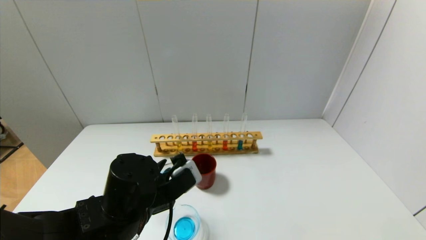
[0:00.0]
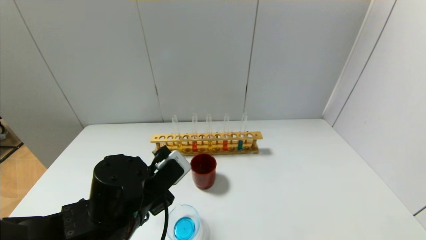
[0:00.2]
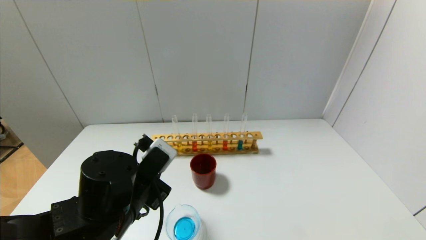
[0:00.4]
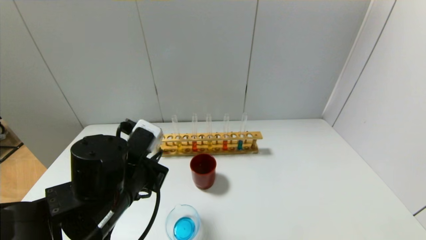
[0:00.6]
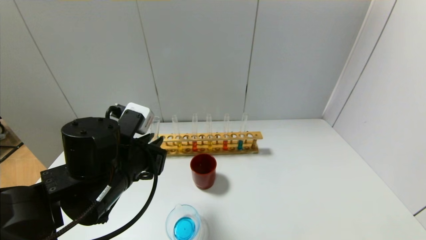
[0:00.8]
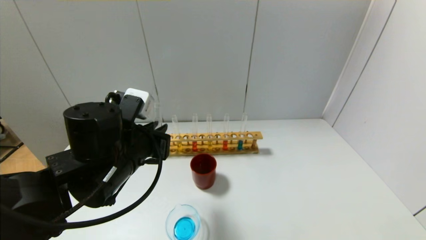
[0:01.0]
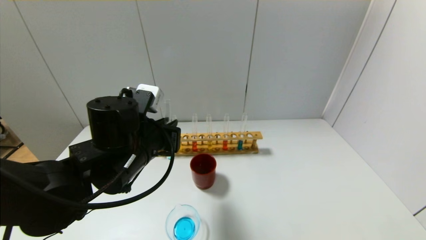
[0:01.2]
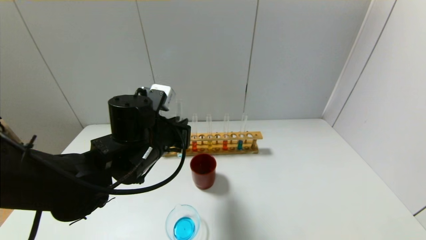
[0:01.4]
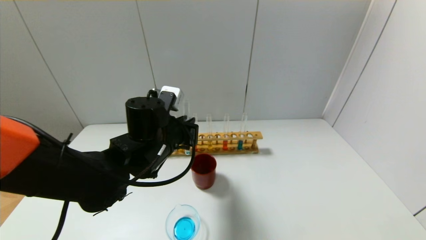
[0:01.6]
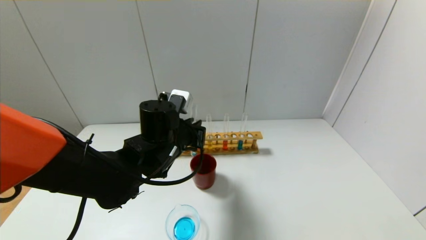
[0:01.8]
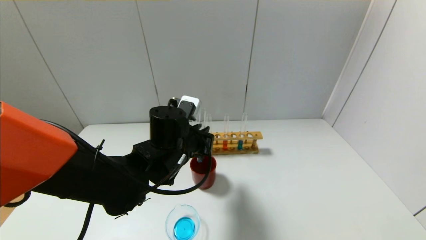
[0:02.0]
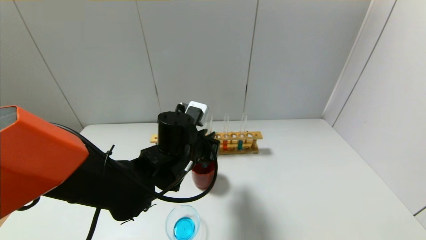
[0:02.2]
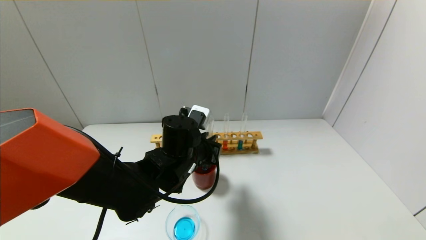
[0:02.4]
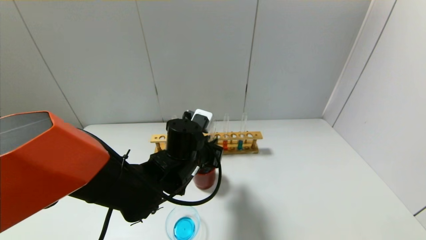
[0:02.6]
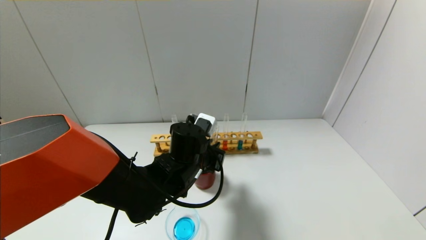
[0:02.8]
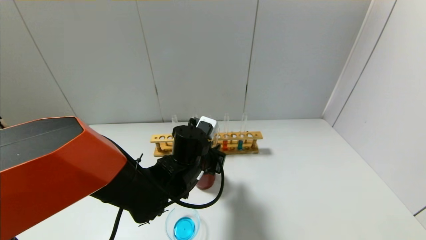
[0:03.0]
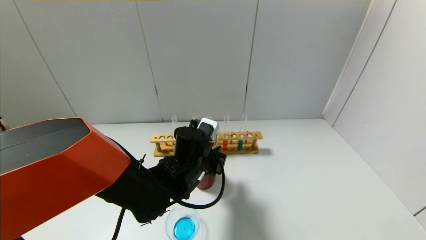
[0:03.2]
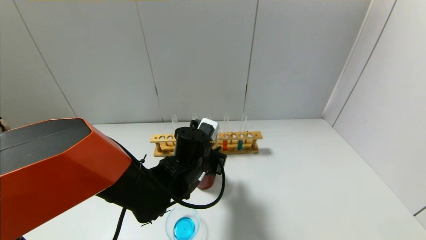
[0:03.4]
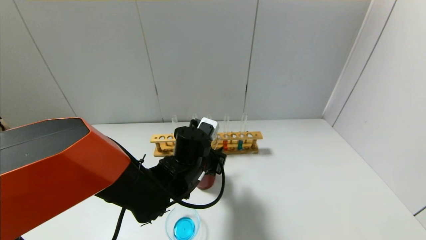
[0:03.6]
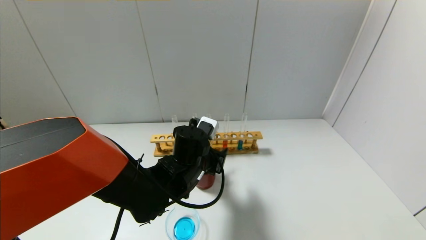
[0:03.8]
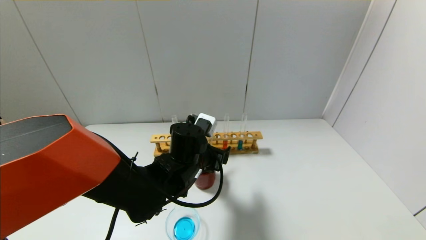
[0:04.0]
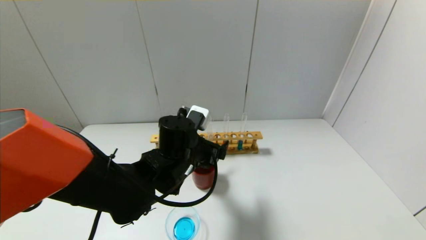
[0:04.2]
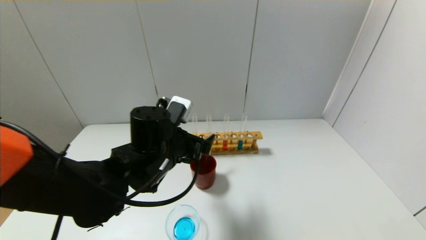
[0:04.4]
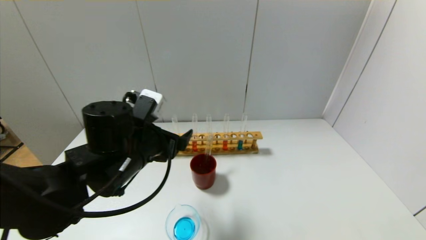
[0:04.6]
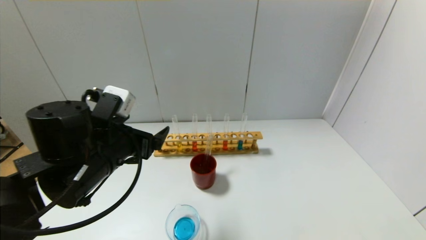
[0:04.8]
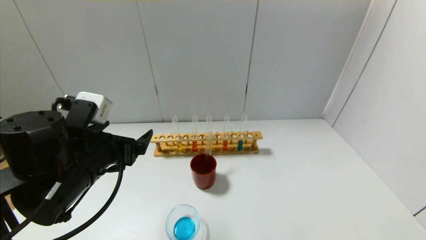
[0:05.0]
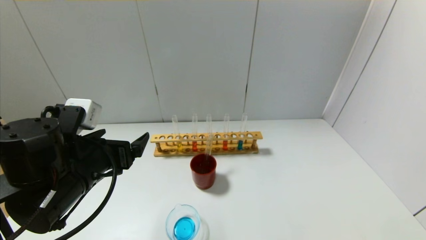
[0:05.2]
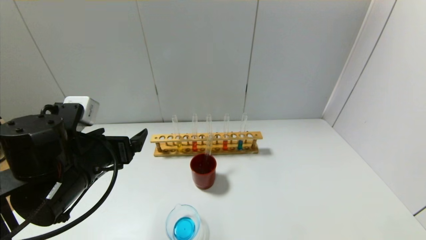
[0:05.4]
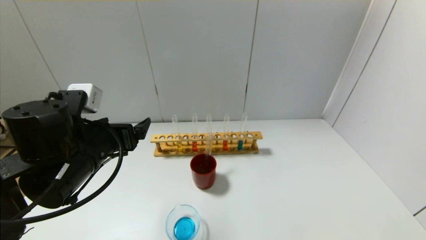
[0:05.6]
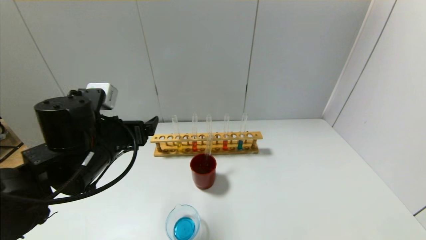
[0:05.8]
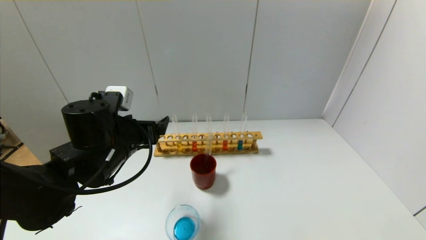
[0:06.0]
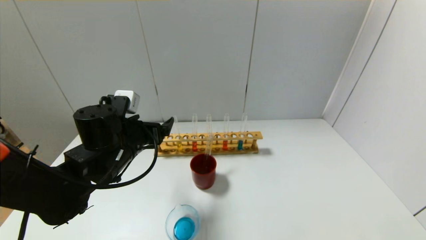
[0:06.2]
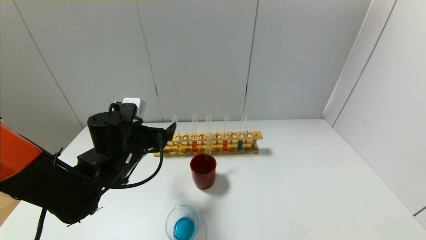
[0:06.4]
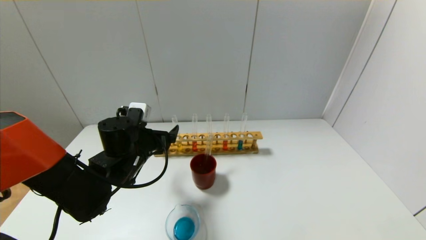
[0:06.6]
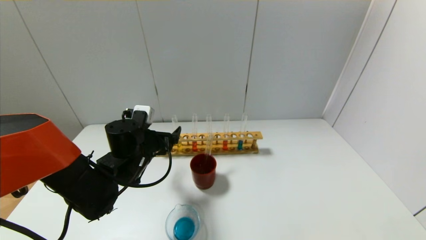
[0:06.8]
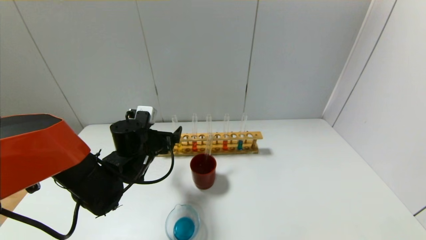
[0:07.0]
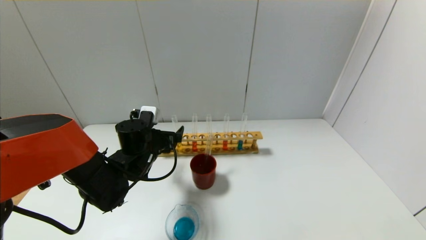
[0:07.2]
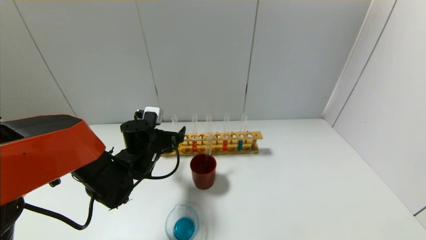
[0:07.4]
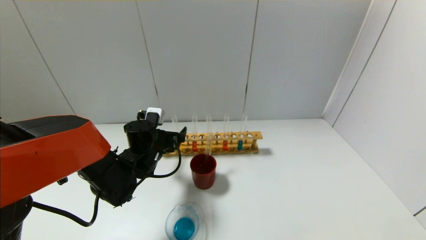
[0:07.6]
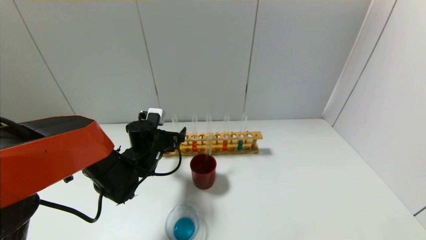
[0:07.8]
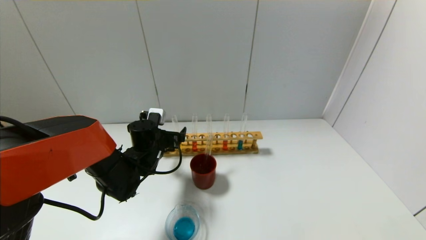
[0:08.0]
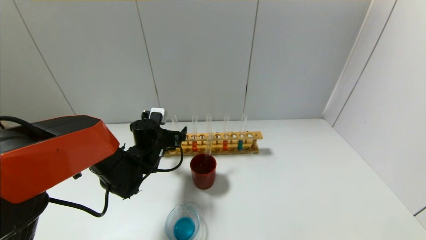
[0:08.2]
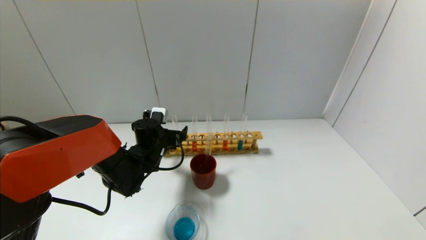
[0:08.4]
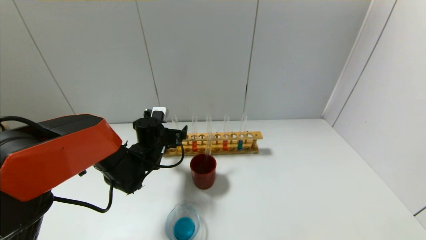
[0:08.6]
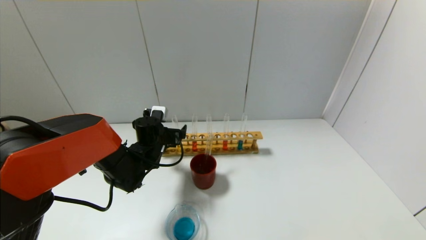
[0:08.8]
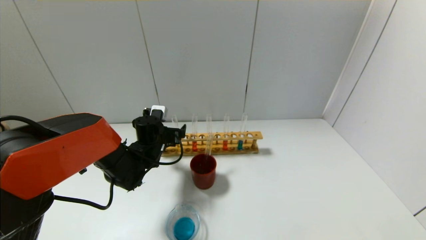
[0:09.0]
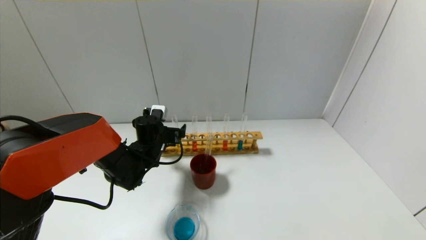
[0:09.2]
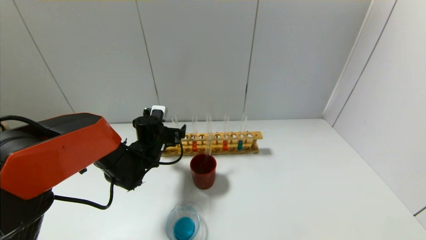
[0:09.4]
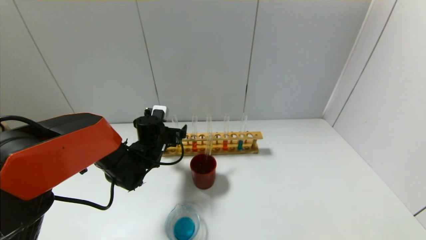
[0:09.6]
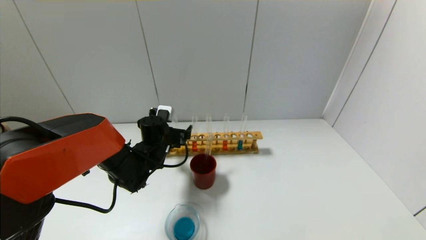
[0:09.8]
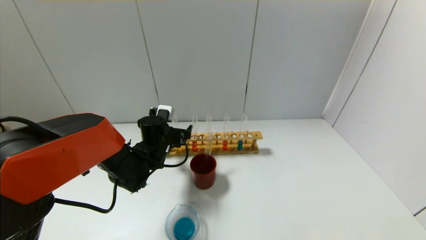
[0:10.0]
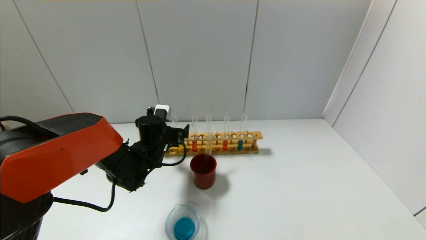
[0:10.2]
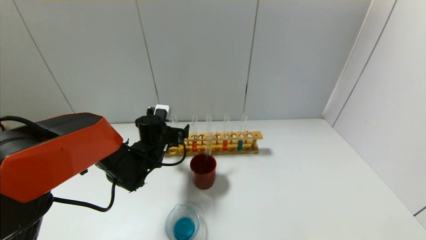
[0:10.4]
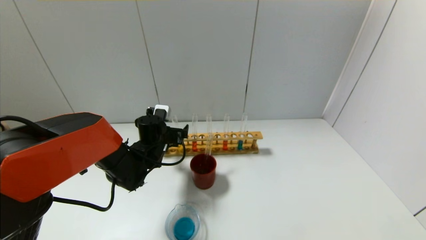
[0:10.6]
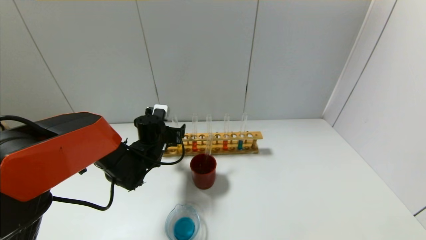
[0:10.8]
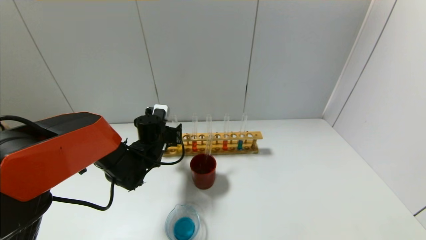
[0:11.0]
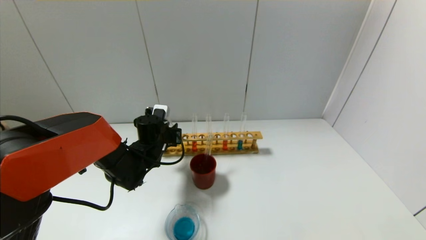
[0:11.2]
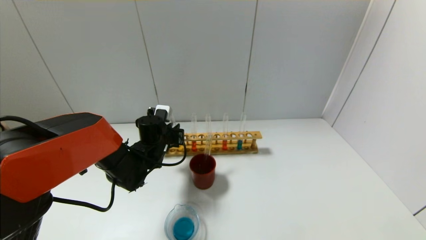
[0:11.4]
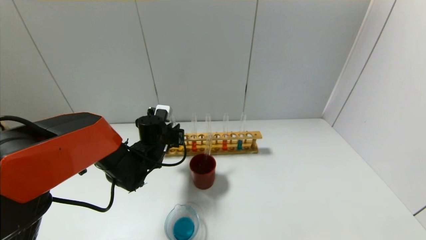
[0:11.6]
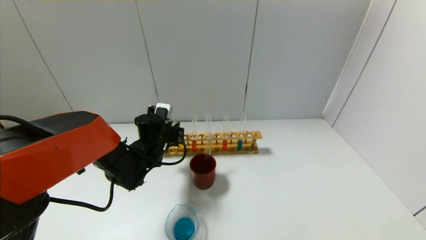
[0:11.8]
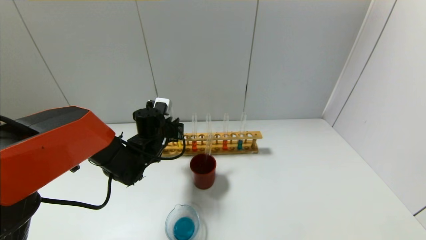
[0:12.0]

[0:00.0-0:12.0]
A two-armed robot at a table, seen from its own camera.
Step, 0:00.0 to 0:03.8: Place the test tube into the brown cup with the left gripper.
Step, 0:04.0 to 0:11.6: Grasp the yellow reagent with the left gripper.
0:00.0 to 0:01.6: The left gripper travels forward by about 10 cm.
0:01.6 to 0:03.0: The left gripper shifts some 10 cm downward and to the right.
0:03.0 to 0:04.4: The left gripper goes about 10 cm upward and to the left, and opens.
0:04.4 to 0:06.0: The left gripper goes some 5 cm to the left.
0:06.0 to 0:07.6: The left gripper heads downward and forward, covering some 15 cm.
0:07.6 to 0:10.4: The grippers make only small movements.
0:10.4 to 0:12.0: The left gripper closes up.

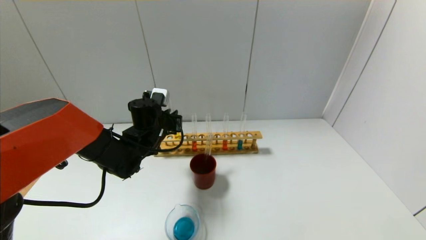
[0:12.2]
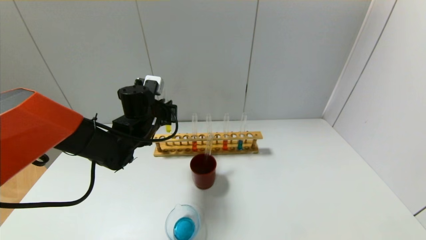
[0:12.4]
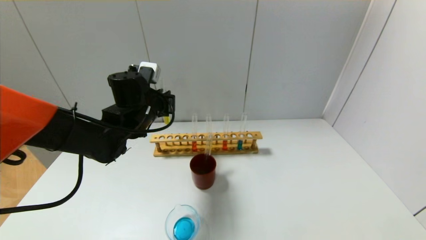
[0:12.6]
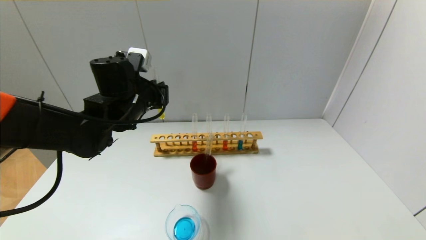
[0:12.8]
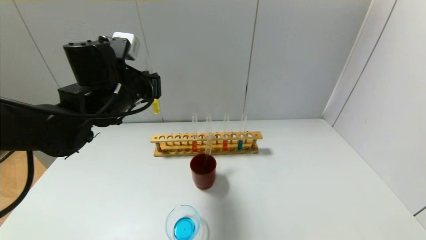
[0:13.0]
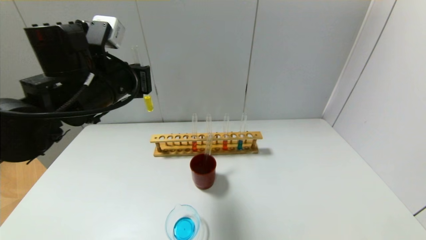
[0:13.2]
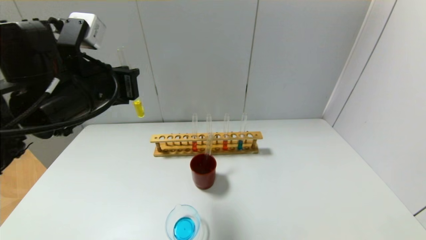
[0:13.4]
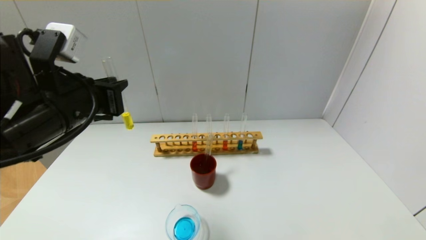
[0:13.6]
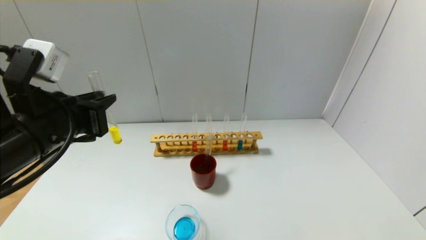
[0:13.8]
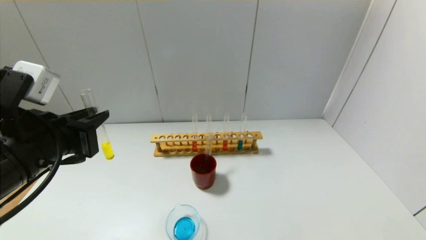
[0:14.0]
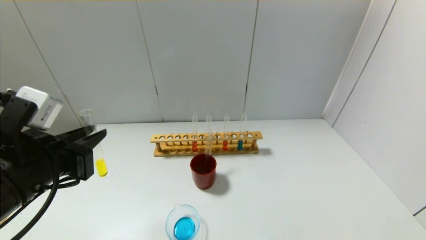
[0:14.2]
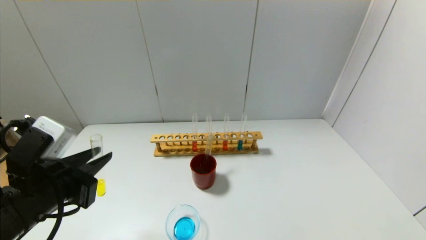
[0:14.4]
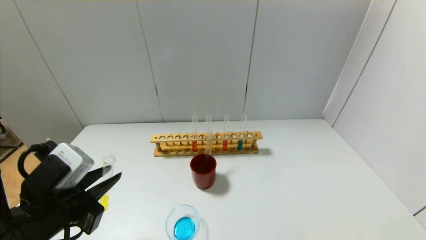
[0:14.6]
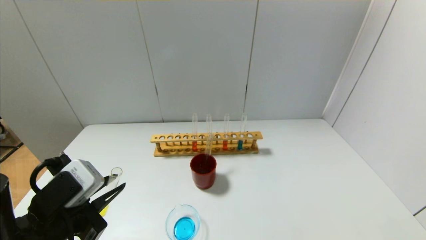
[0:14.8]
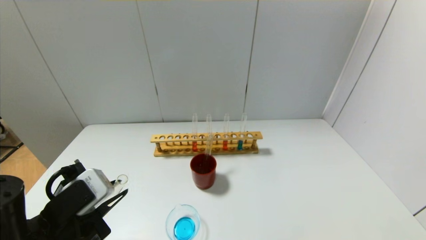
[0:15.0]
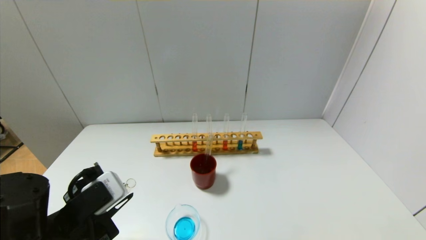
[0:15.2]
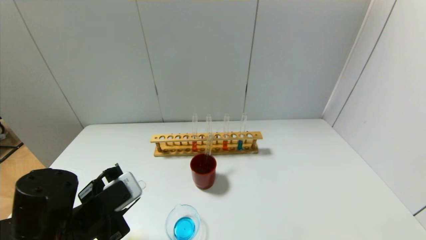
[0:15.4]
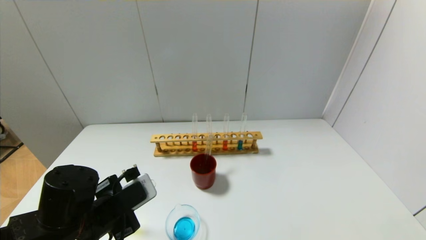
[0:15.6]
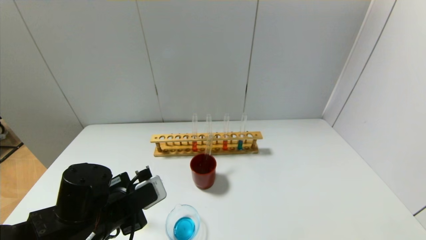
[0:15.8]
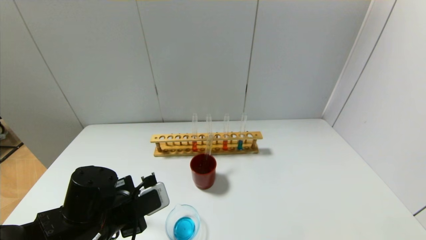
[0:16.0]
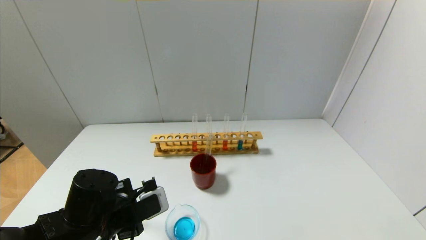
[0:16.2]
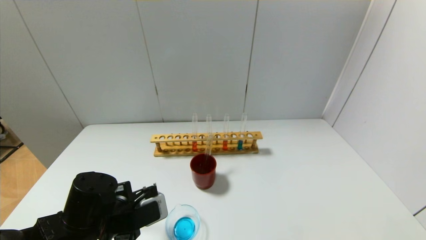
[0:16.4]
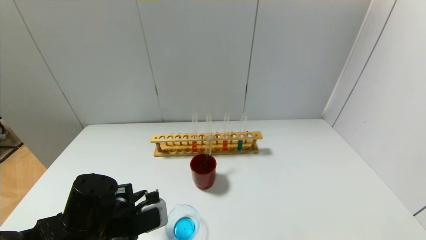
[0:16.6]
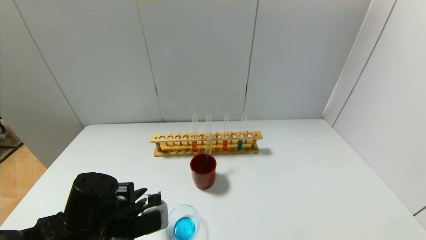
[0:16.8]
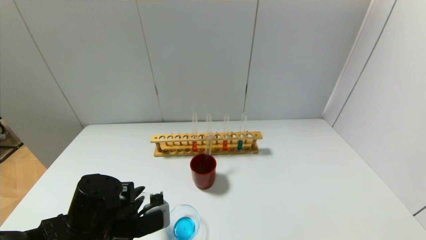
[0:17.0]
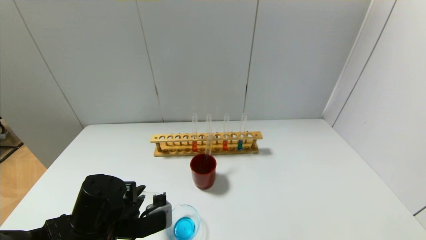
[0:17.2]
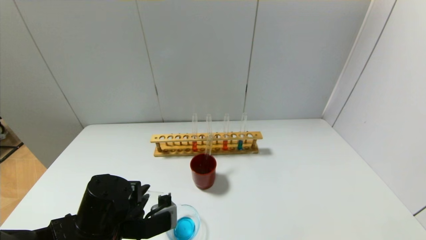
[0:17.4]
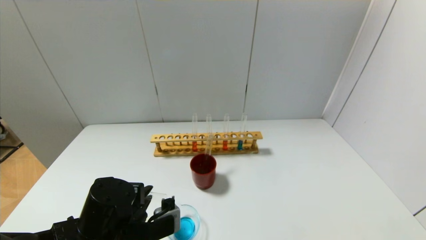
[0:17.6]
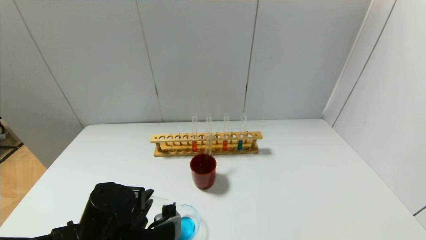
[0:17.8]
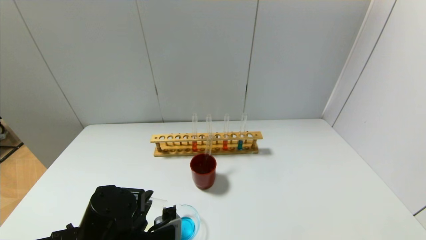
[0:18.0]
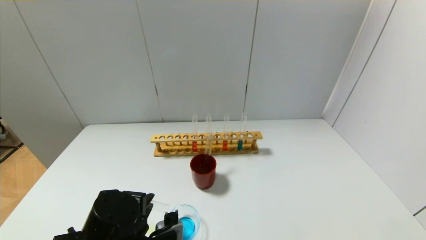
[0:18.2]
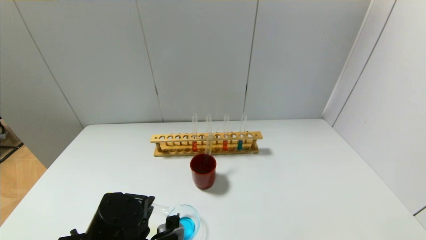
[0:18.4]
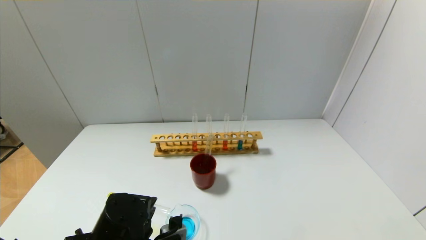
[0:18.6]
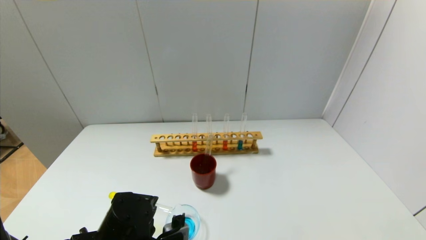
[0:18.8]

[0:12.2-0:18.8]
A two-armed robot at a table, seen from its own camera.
0:12.2 to 0:13.8: The left gripper moves backward and upward, about 25 cm.
0:13.8 to 0:15.4: The left gripper travels downward by about 15 cm.
0:17.2 to 0:18.8: The grippers make only small movements.
